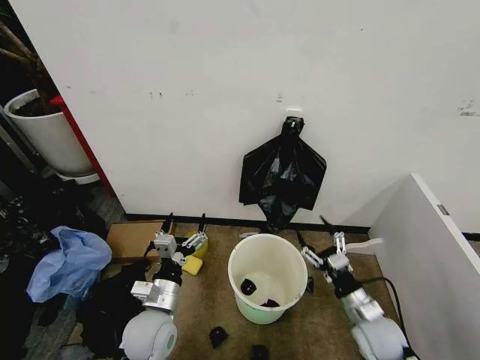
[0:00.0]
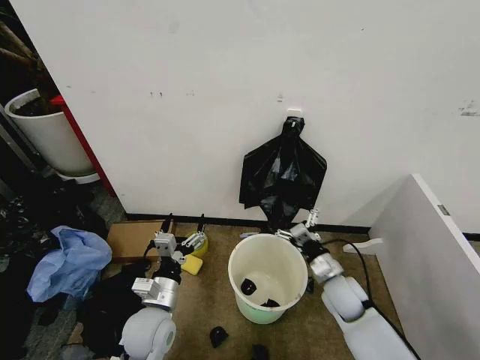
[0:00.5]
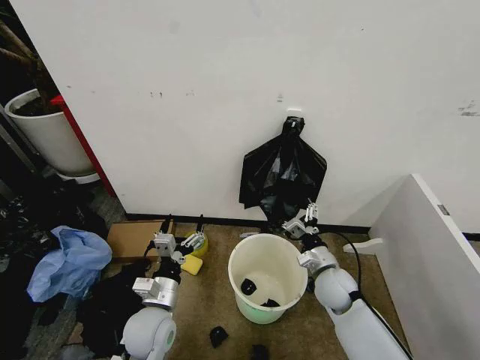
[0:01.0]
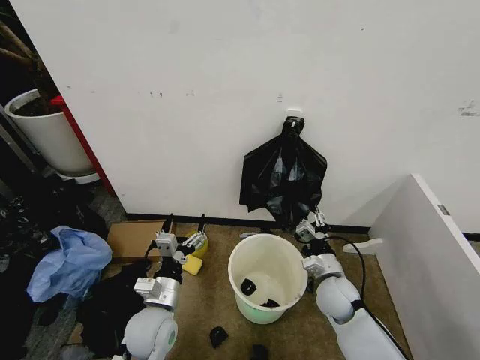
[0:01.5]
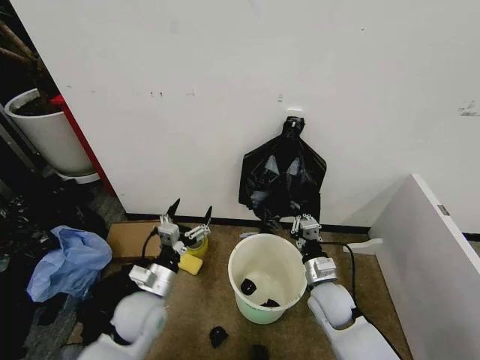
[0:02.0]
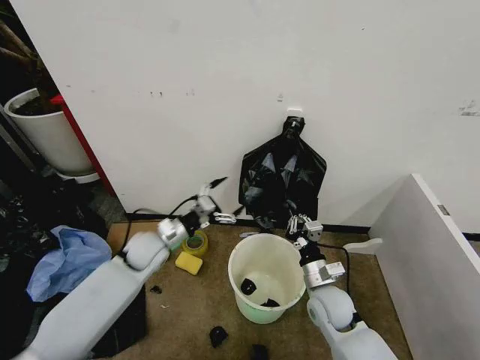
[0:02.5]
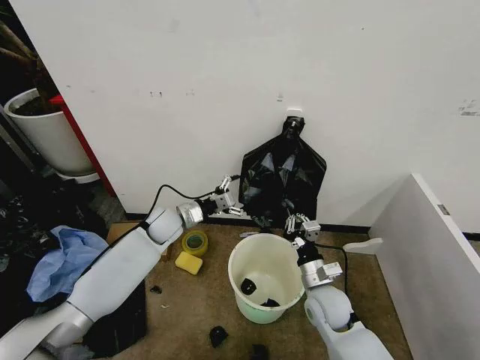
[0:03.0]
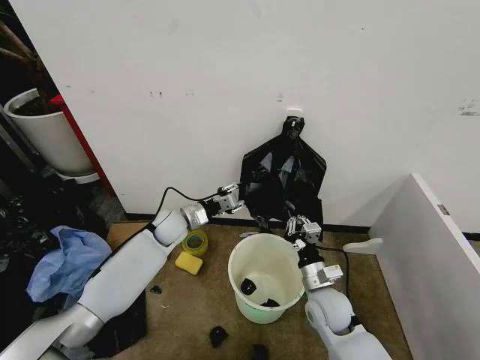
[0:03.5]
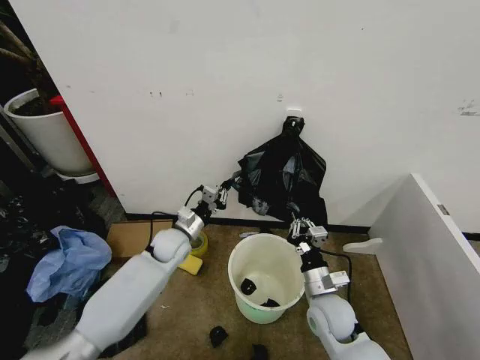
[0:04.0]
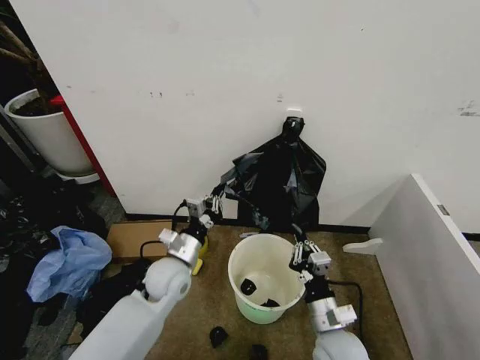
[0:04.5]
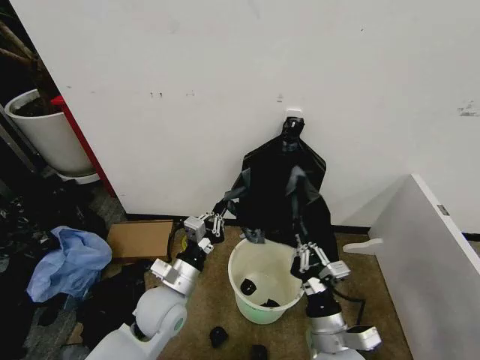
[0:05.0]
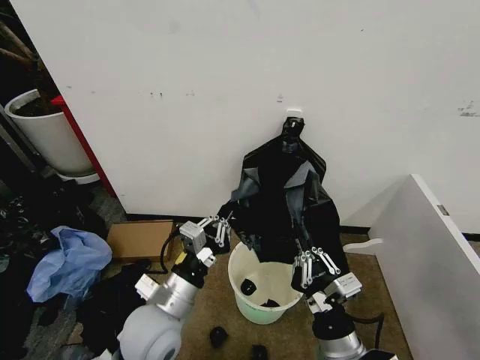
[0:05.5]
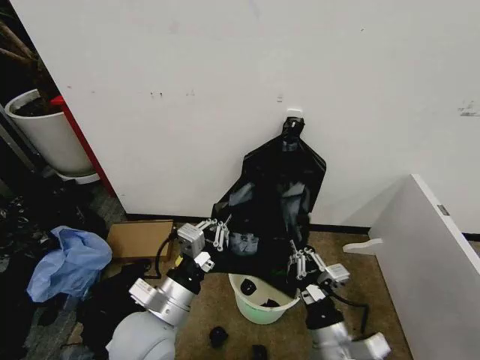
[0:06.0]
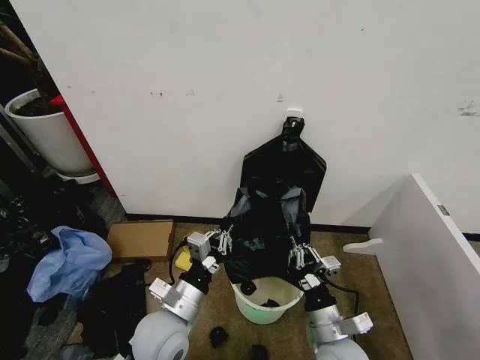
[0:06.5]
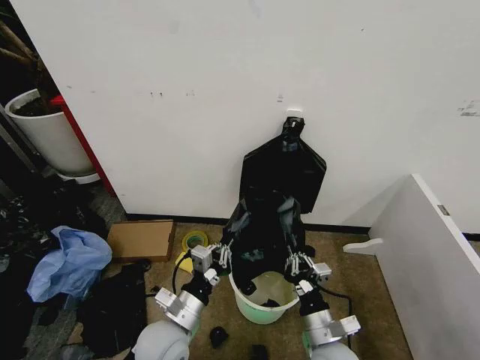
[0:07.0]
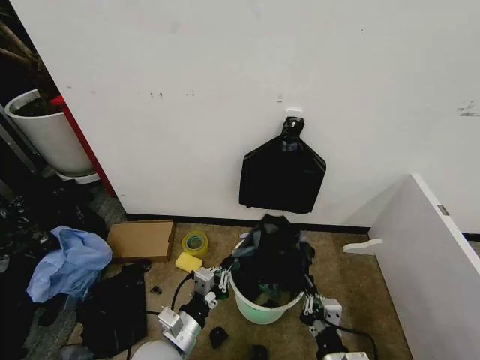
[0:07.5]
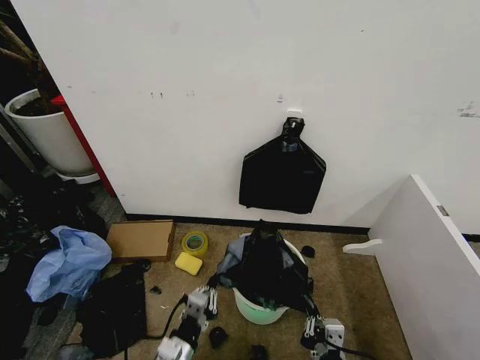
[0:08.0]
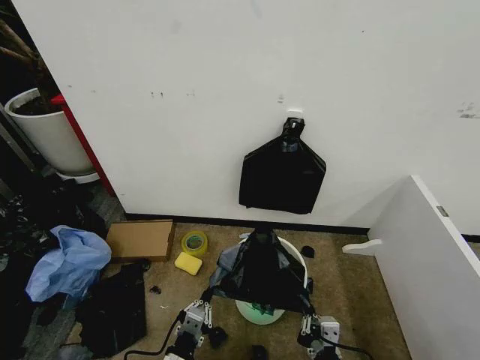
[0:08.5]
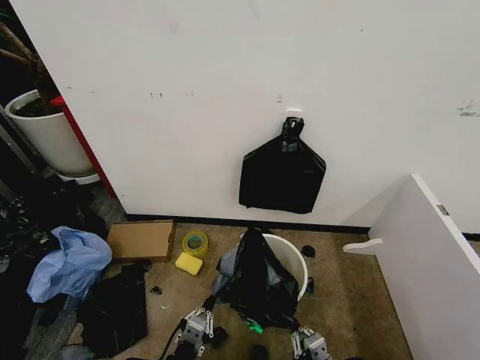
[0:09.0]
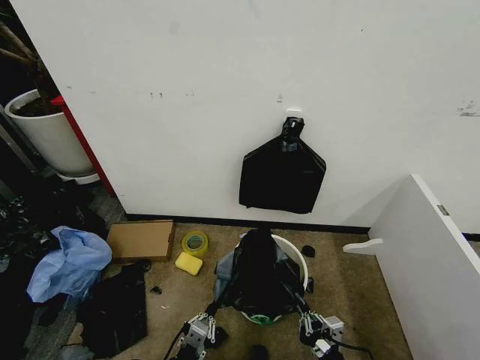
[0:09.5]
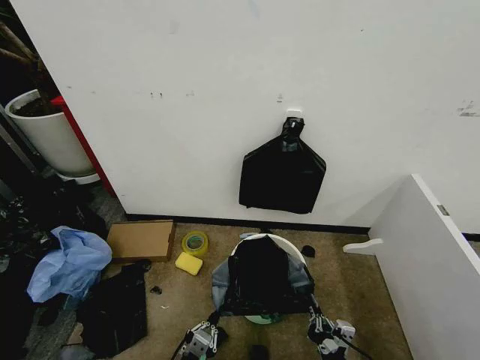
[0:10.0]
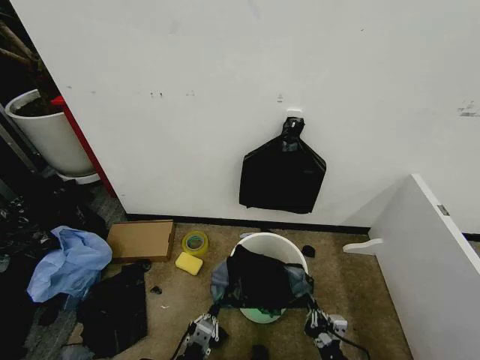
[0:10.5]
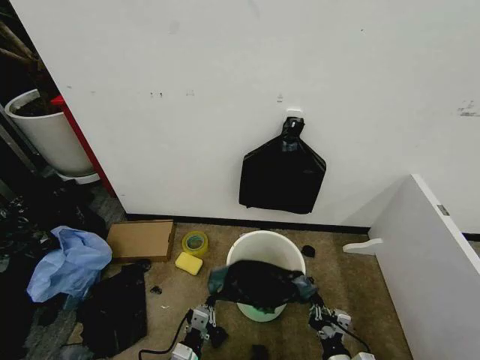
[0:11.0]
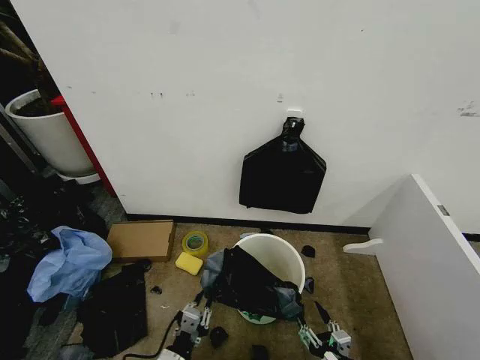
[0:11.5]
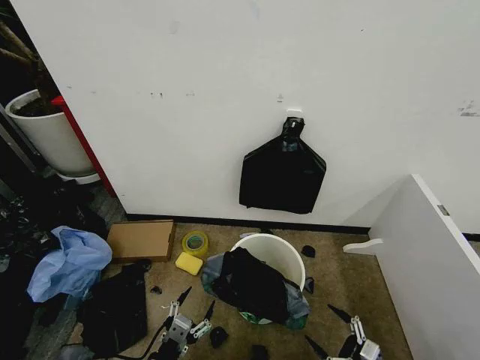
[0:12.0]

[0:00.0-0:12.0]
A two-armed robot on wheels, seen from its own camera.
Task of the whole recording: Place the garbage bag over the trash bin.
0:00.0 to 0:02.0: The right gripper goes approximately 10 cm to the left and forward, and closes up.
0:02.0 to 0:04.0: The left gripper travels forward by approximately 20 cm, and closes its fingers.
0:04.0 to 0:06.0: The left gripper travels backward by roughly 25 cm, while the right gripper goes approximately 15 cm backward and upward.
0:06.0 to 0:08.0: The right gripper is displaced backward by approximately 10 cm, while the left gripper moves downward and backward, approximately 15 cm.
0:08.0 to 0:10.0: The two grippers go about 5 cm downward.
0:10.0 to 0:12.0: The left gripper shifts by approximately 5 cm, and opens up; the right gripper heads to the right, covering about 15 cm, and opens its fingers.

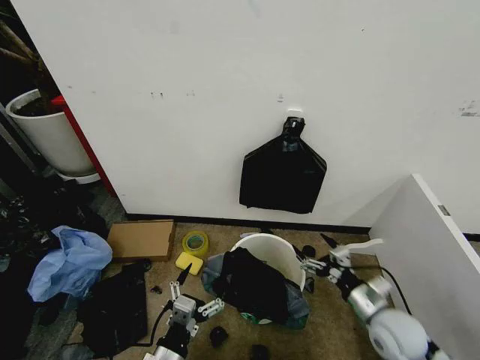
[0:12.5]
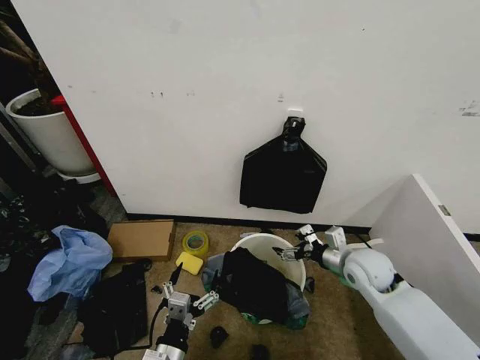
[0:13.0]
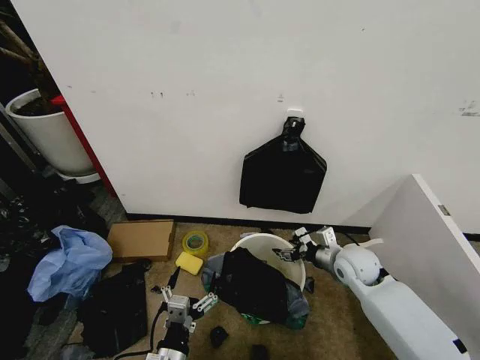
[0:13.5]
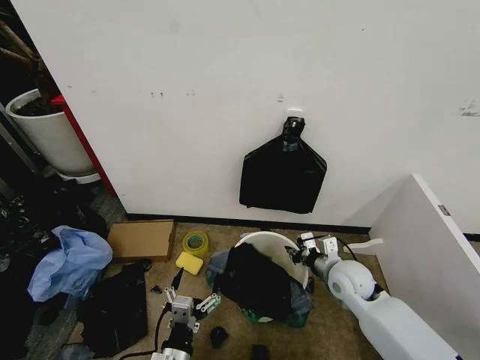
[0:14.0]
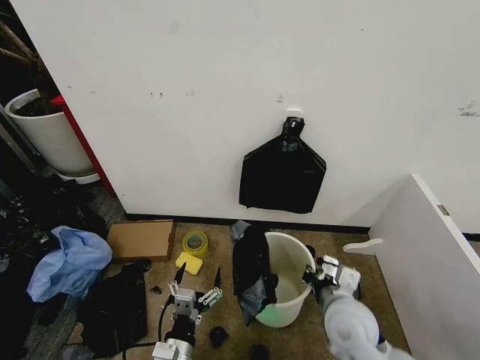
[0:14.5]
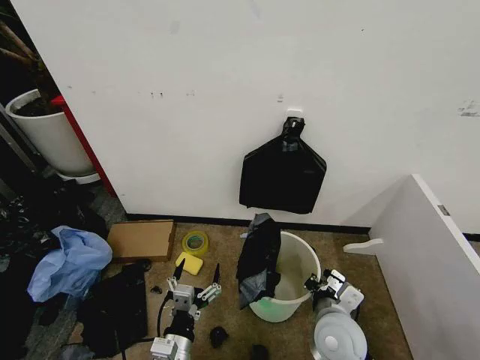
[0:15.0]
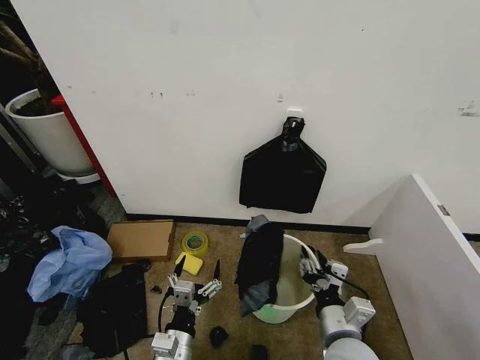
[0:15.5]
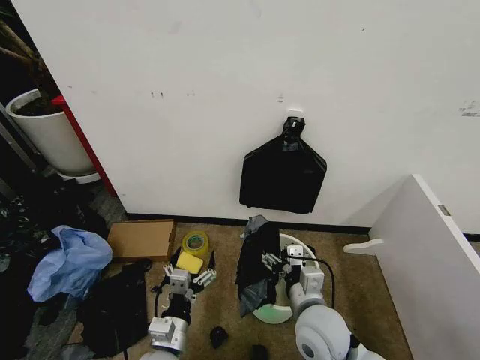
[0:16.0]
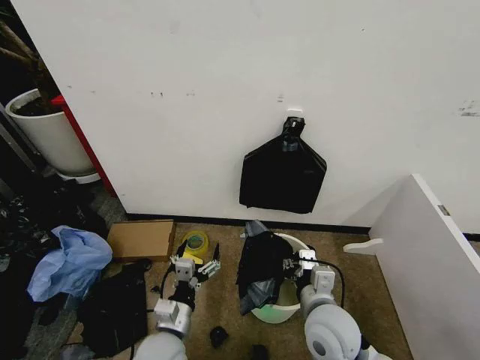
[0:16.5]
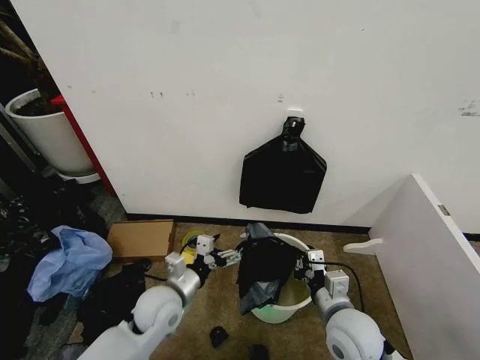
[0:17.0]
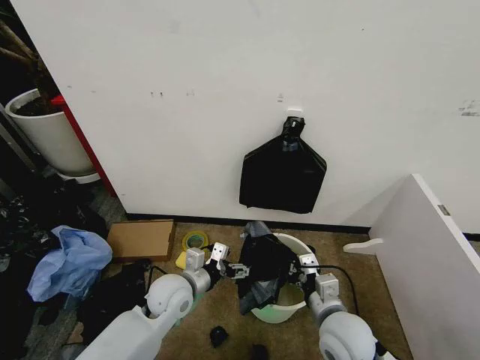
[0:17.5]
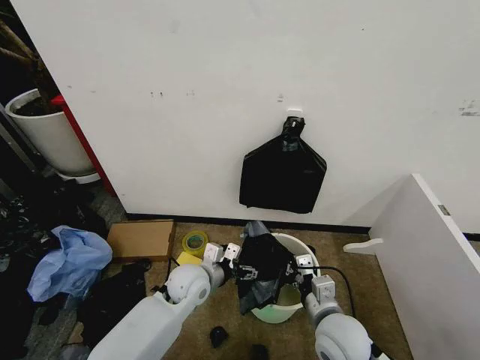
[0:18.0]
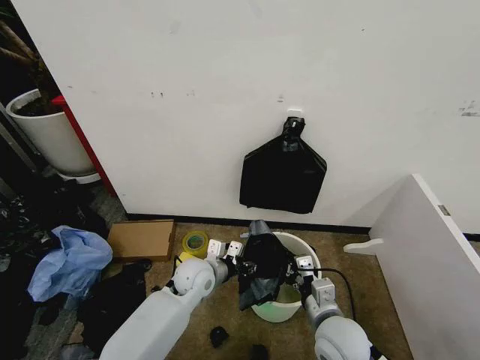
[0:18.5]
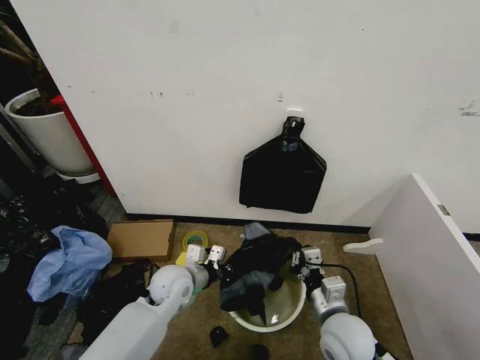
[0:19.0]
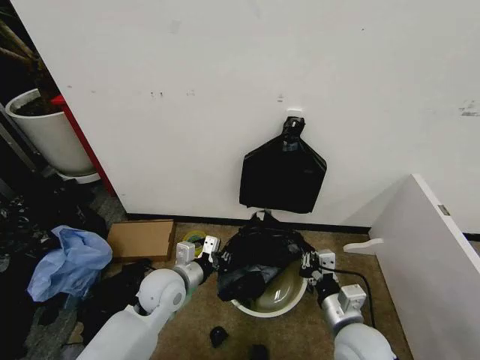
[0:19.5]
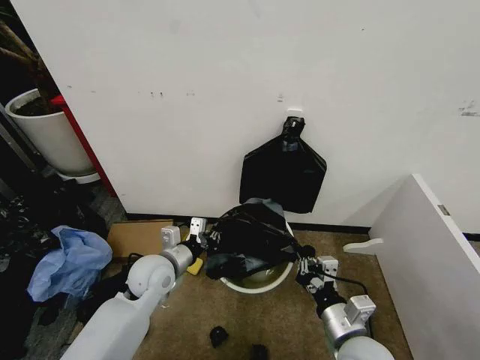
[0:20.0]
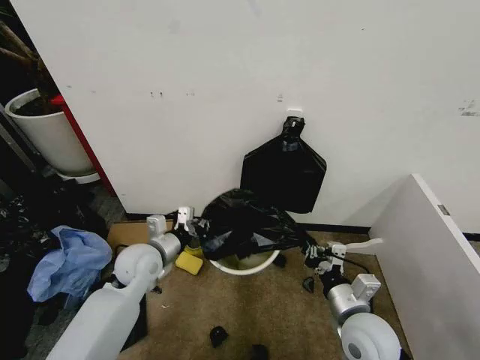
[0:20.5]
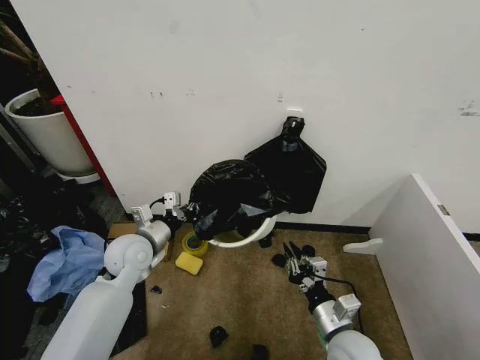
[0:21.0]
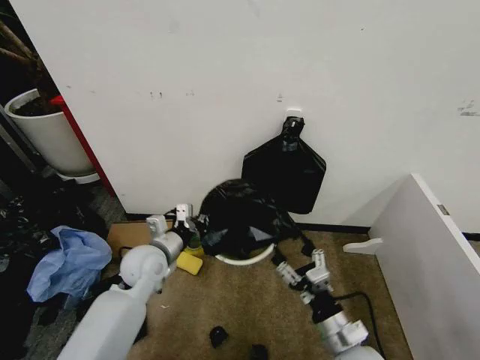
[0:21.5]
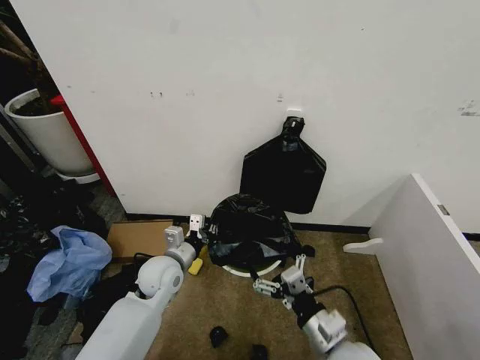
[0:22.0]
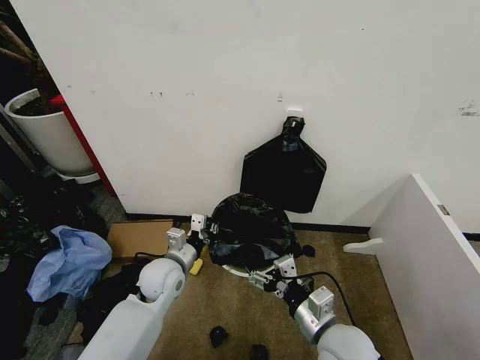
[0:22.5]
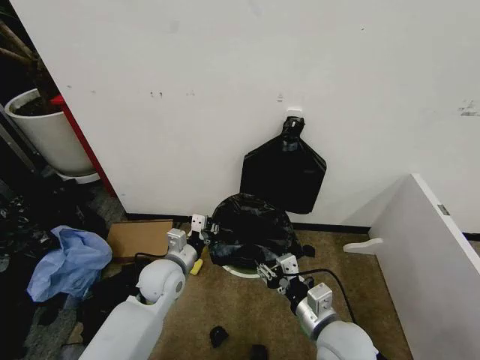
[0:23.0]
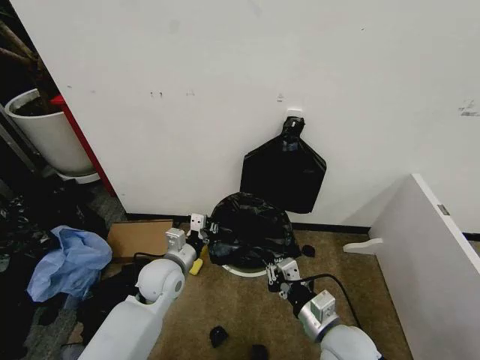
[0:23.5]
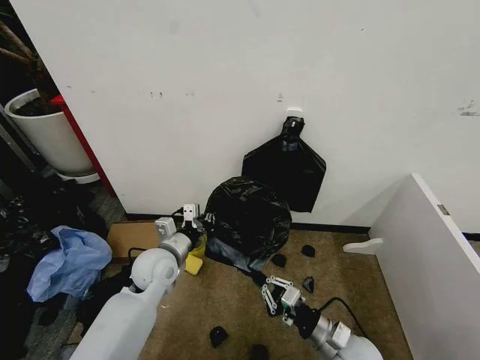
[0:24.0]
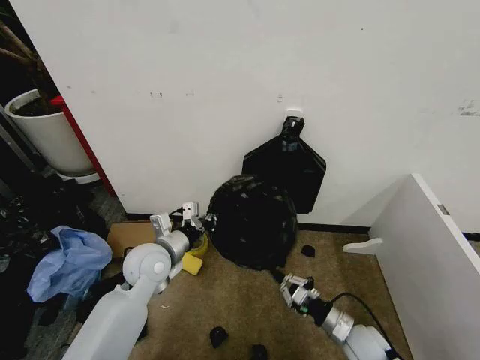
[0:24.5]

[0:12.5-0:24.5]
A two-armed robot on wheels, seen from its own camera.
Task of the whole recording: Place the garbage bag over the trash bin.
0:12.5 to 0:14.5: The right gripper goes roughly 10 cm to the left, reaches roughly 15 cm forward, then returns, and closes its fingers.
0:14.5 to 0:16.5: The right gripper heads to the left, covering about 5 cm, and opens, then closes once more; the left gripper shifts some 5 cm forward.
0:16.5 to 0:18.5: The right gripper closes. The left gripper moves forward, about 15 cm, and closes its fingers.
0:18.5 to 0:20.5: The left gripper travels to the left and upward by approximately 15 cm, and closes its fingers. The right gripper moves to the right, approximately 5 cm.
0:20.5 to 0:22.5: The right gripper heads to the left, covering about 5 cm, and opens; the left gripper ends up some 5 cm from where it was.
0:22.5 to 0:24.5: The right gripper goes roughly 20 cm downward and to the right, and closes. The left gripper heads upward, covering some 5 cm.

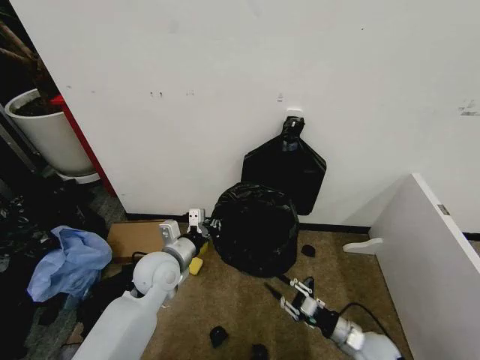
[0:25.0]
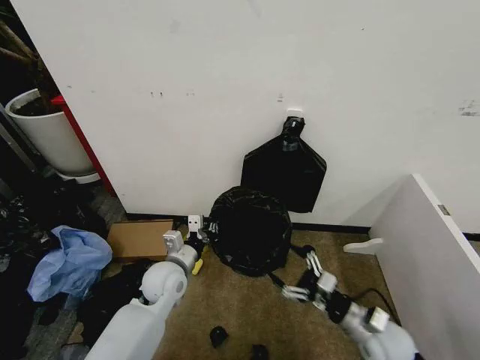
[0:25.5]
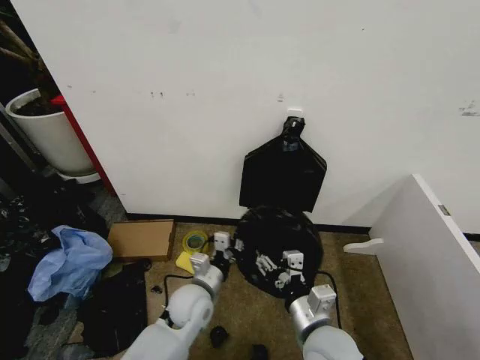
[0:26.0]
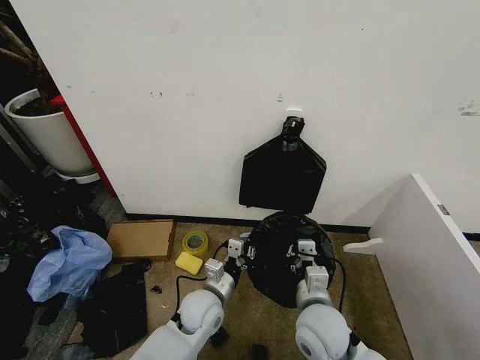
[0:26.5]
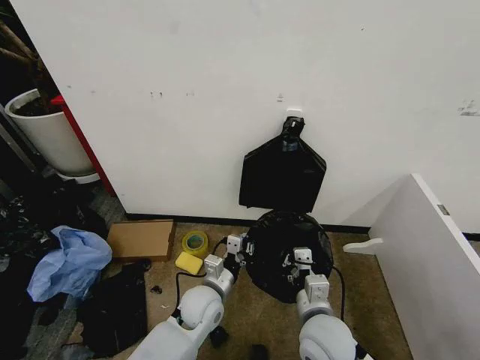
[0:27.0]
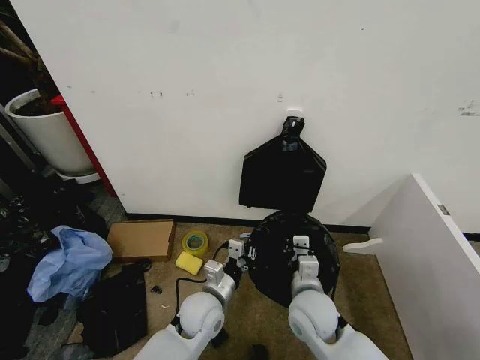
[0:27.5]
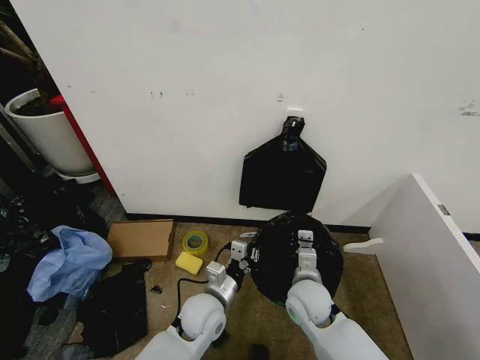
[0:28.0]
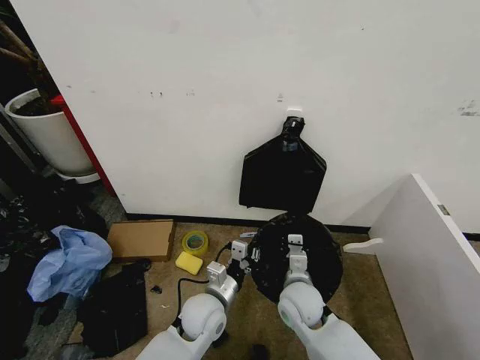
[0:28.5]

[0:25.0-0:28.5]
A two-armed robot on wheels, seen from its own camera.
Task of the whole recording: Place the garbage bag over the trash bin.
0:25.0 to 0:27.0: The left gripper shifts some 15 cm to the right and downward; the right gripper shifts some 25 cm to the left and upward, and opens, then closes again.
0:27.0 to 0:28.5: The right gripper moves forward and downward, roughly 10 cm.
